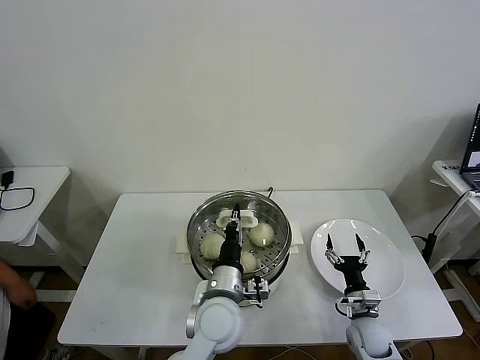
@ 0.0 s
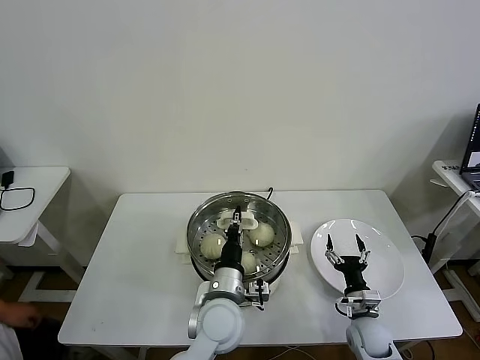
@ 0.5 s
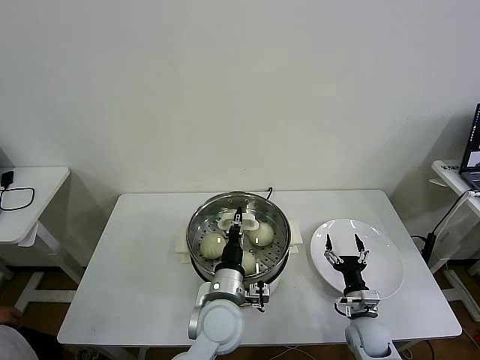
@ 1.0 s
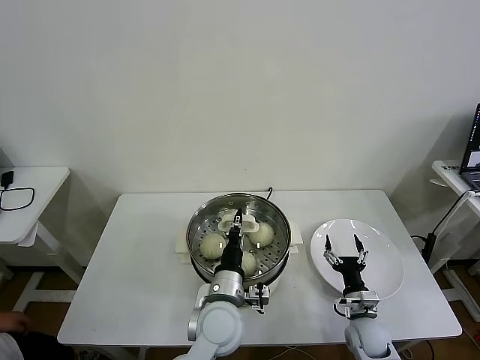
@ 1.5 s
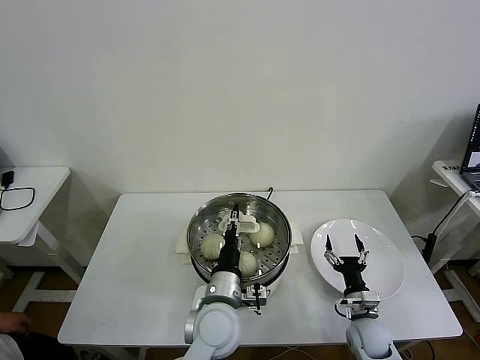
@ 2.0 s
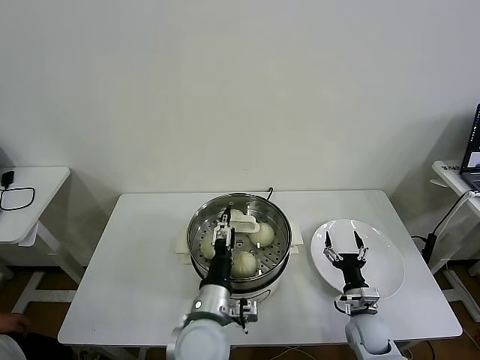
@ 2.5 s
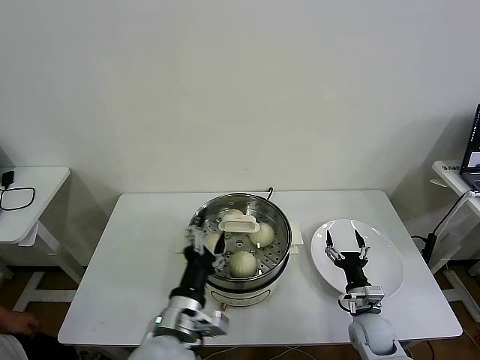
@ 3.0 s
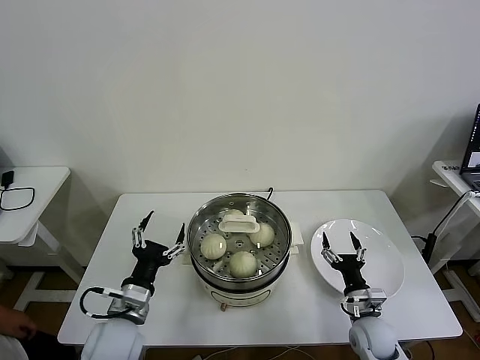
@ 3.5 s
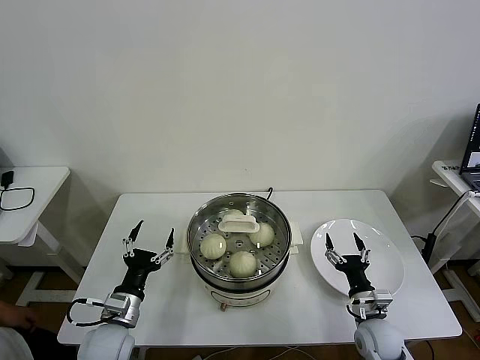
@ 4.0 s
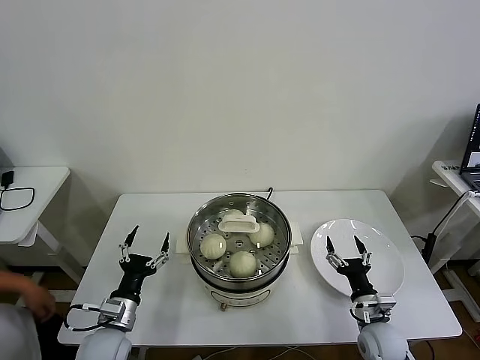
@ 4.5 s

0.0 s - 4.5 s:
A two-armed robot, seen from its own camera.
Task of the whole recording: take steamed baozi put them in steamer then cover it.
Step, 0.0 s - 2.0 s: Place the pot lid on the steamer with left gripper.
0.0 s - 2.0 s: There are only small adjustments of the grippers.
2.0 s - 4.5 s: The left gripper is displaced to the left by roughly 25 cm, and opens its fingers.
